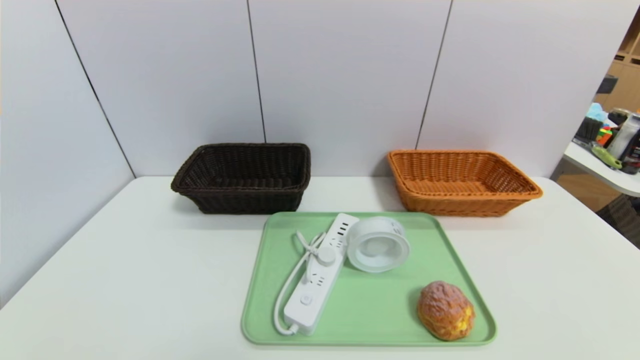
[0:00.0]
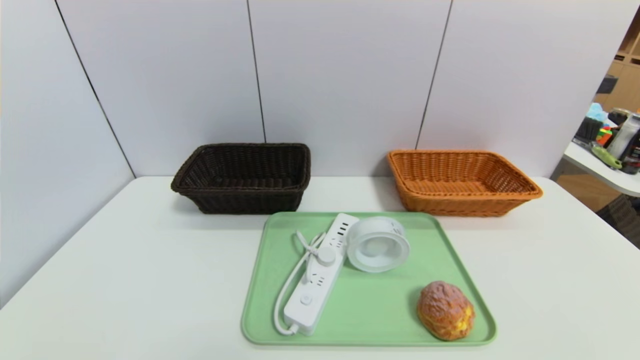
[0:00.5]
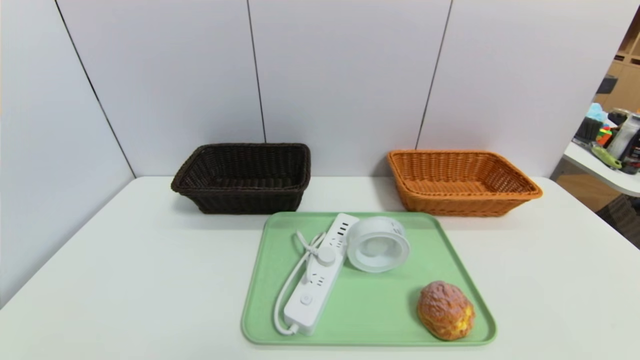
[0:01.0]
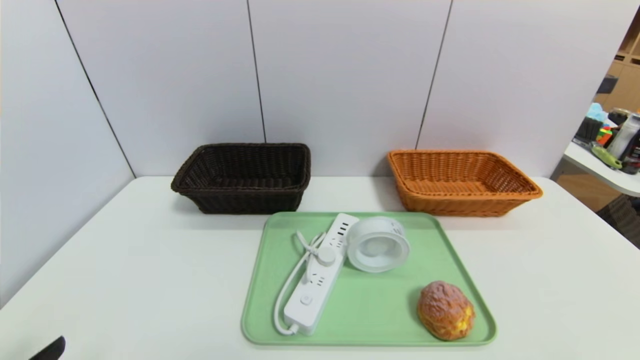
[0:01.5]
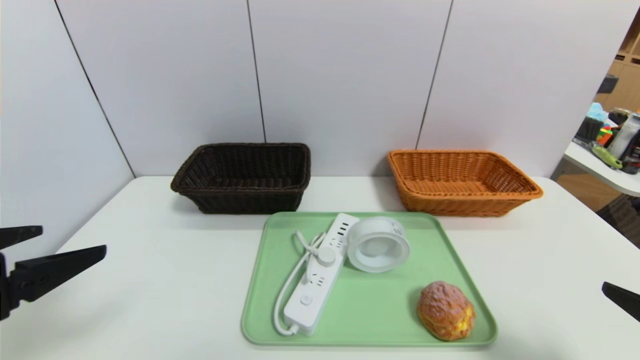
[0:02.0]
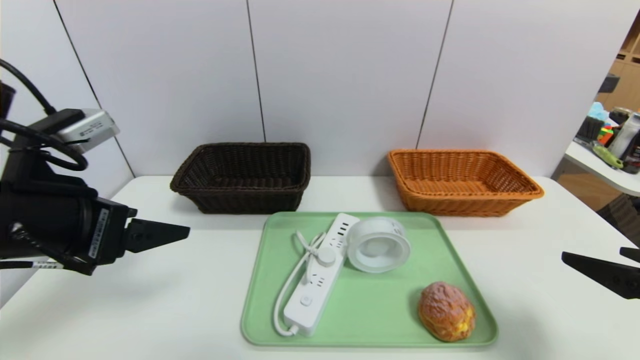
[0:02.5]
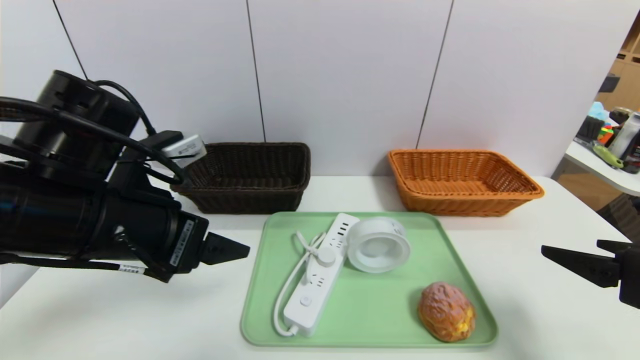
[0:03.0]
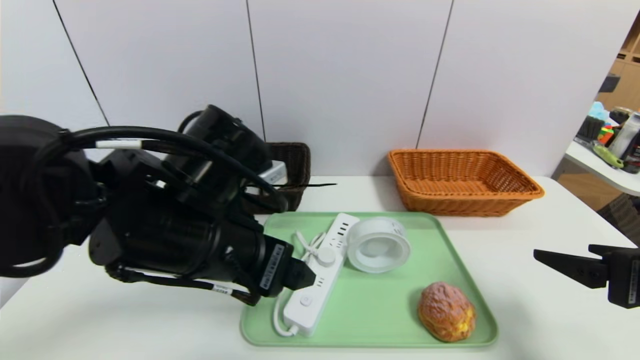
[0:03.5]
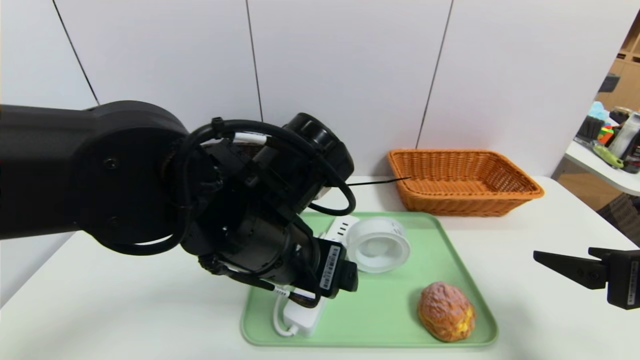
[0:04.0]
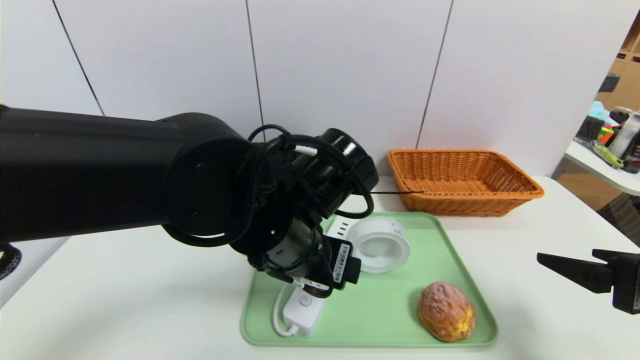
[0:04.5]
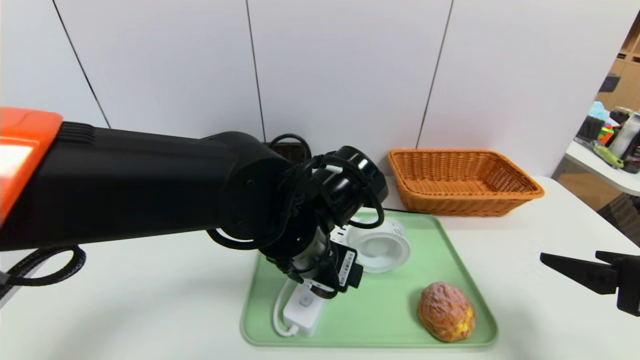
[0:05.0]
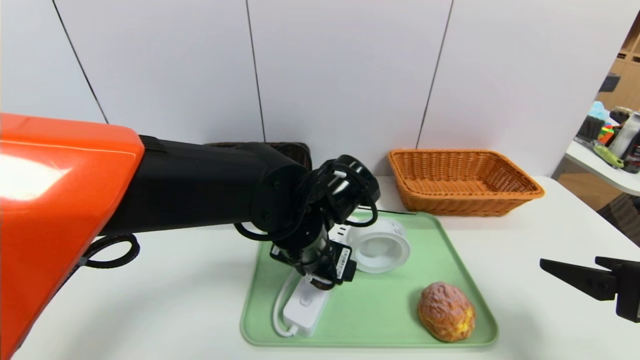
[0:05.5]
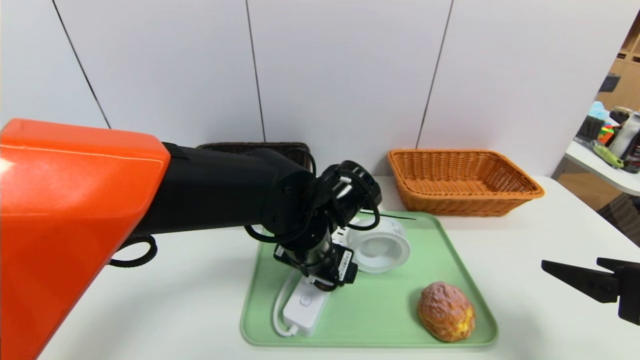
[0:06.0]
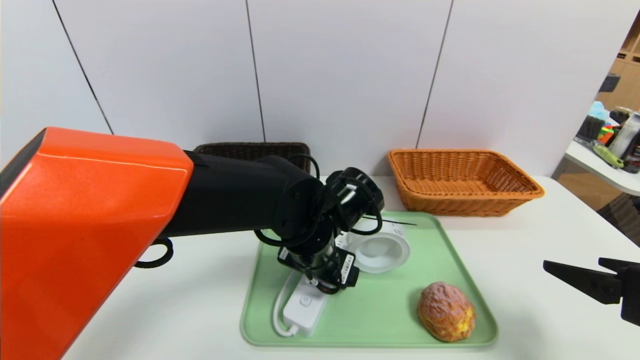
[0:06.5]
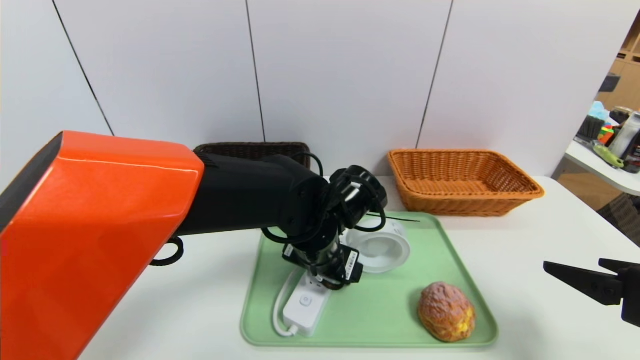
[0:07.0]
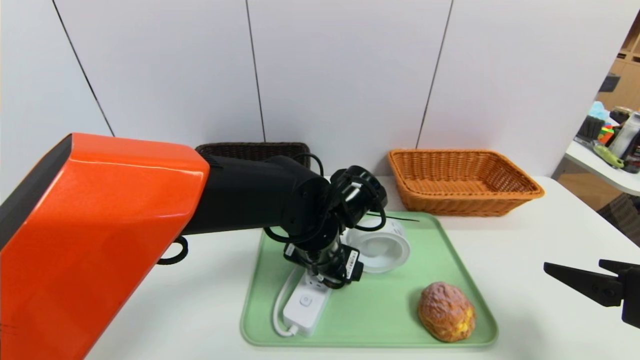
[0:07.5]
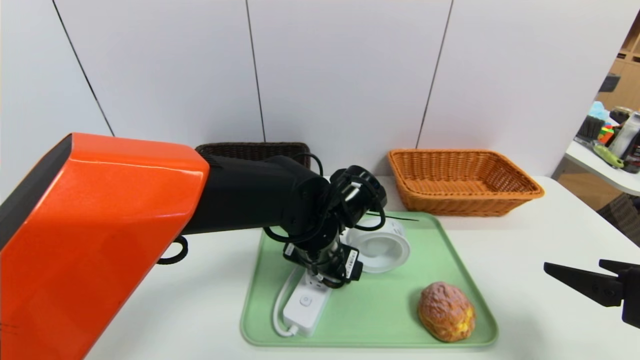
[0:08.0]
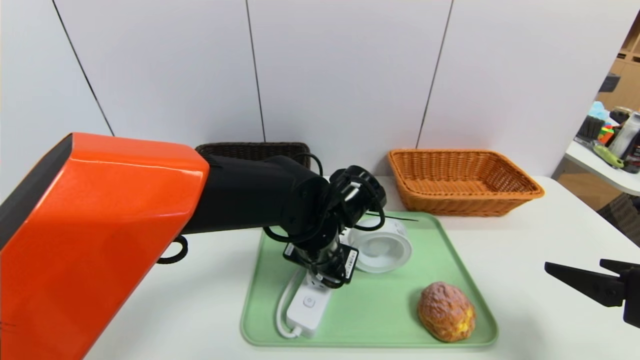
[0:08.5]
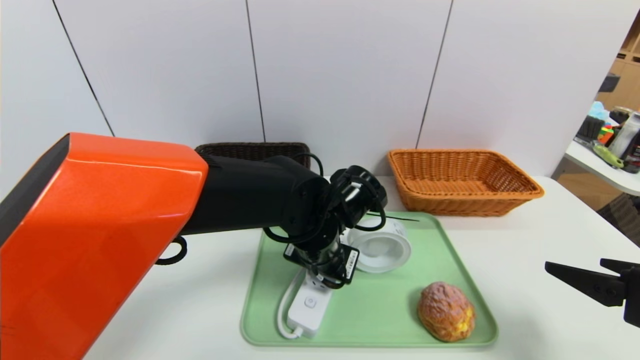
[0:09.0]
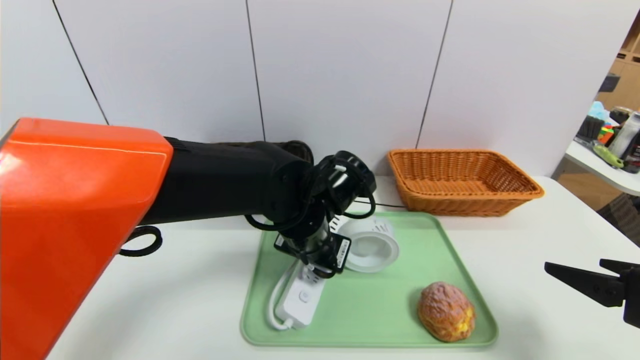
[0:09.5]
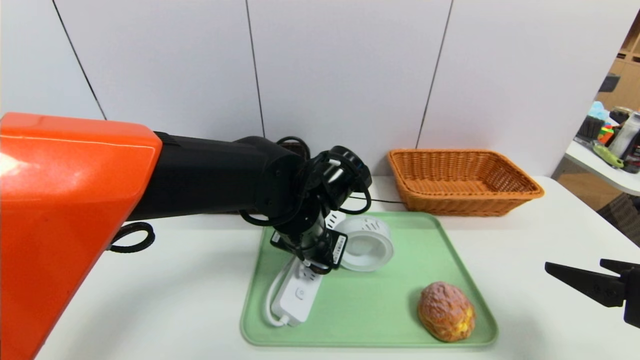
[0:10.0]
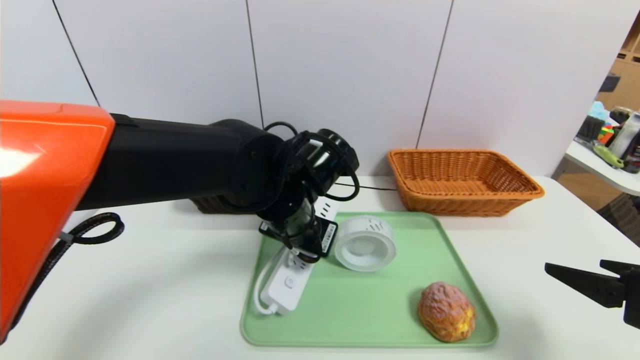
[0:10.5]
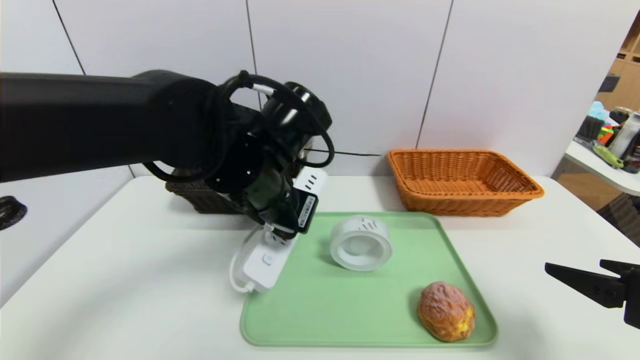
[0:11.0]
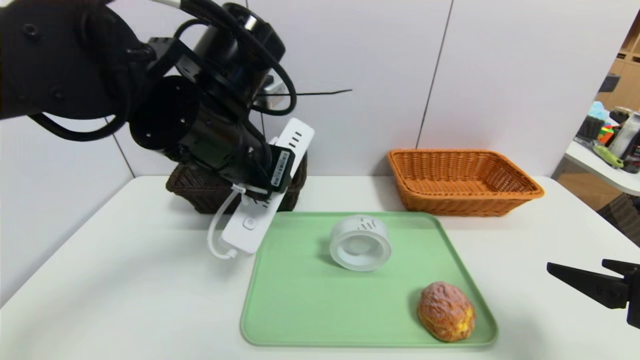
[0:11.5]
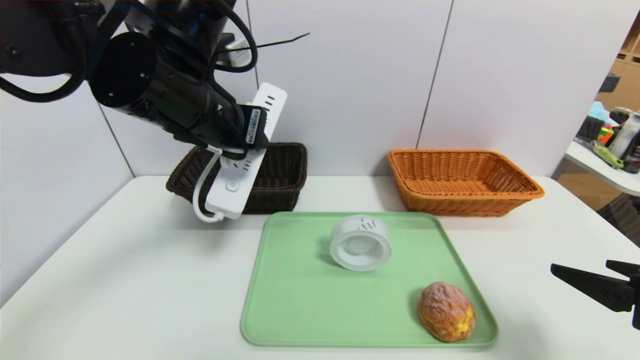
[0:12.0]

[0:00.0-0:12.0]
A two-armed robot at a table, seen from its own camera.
Task of the whole recording: place the food in the right basket with the right gripper, and place the non food items in the left basket with the left gripper.
0:00.0 to 0:02.0: The grippers both shift upward and forward by roughly 20 cm.
0:02.0 to 0:04.0: The right gripper moves forward, roughly 10 cm; the left gripper is displaced to the right and forward by roughly 25 cm.
0:04.0 to 0:06.0: The left gripper goes some 10 cm downward and forward.
0:06.0 to 0:08.0: The grippers move only a little.
0:08.0 to 0:10.0: The left gripper closes up.
0:10.0 to 0:12.0: The left gripper goes roughly 20 cm upward and to the left.

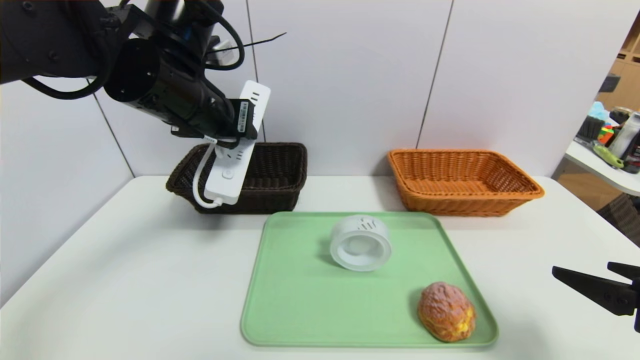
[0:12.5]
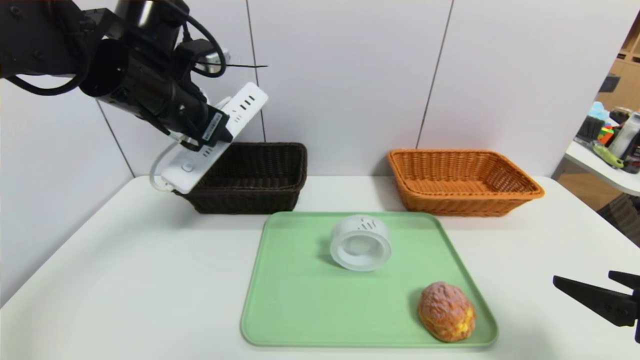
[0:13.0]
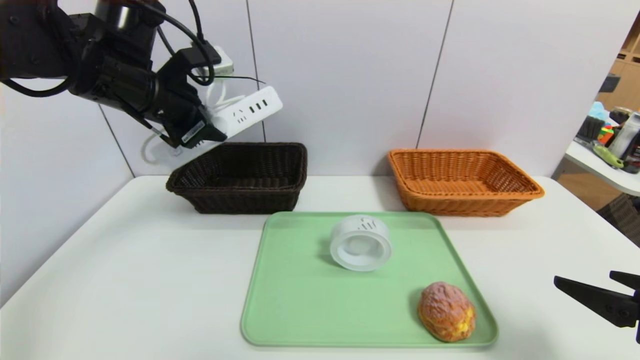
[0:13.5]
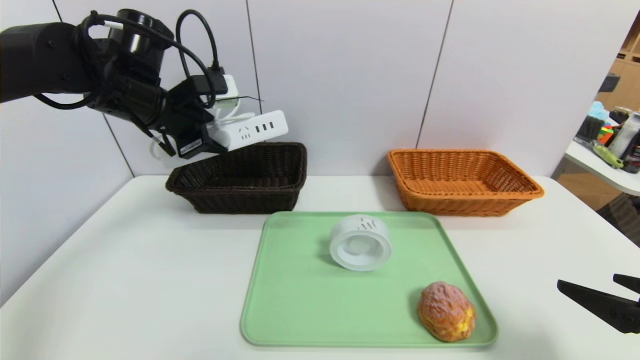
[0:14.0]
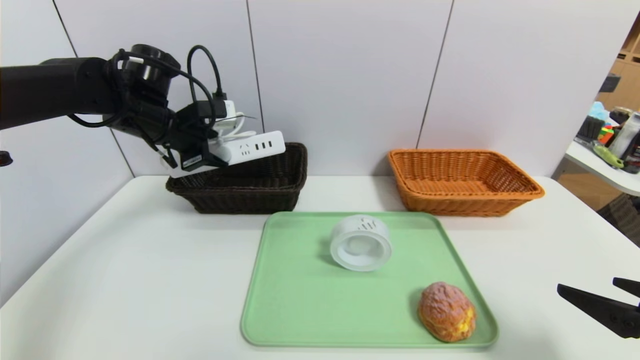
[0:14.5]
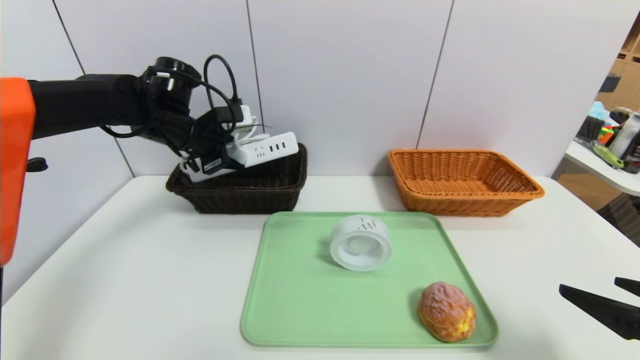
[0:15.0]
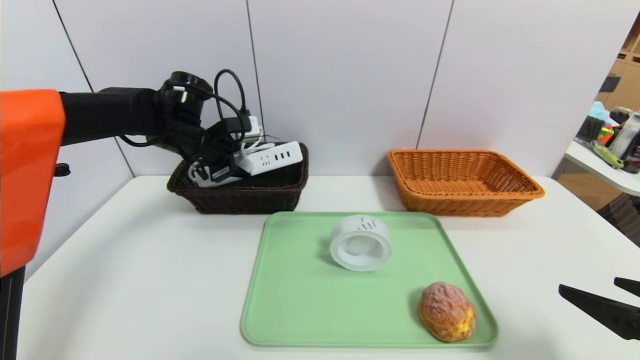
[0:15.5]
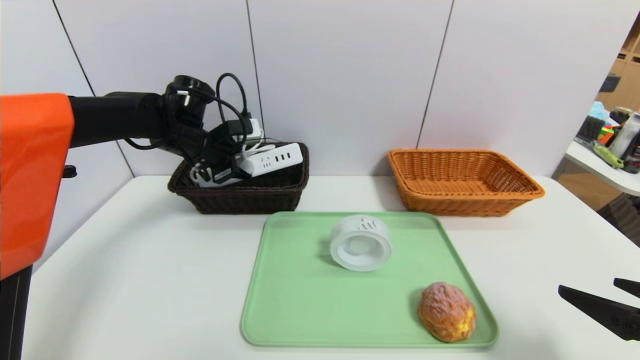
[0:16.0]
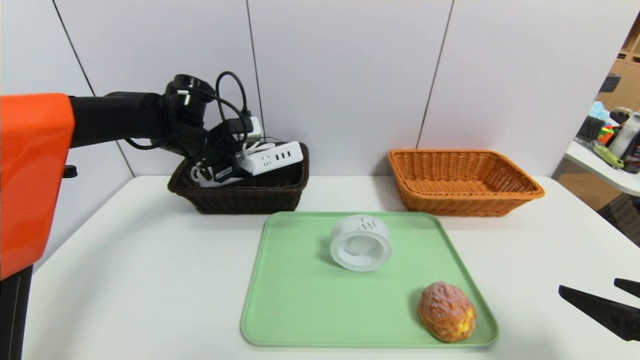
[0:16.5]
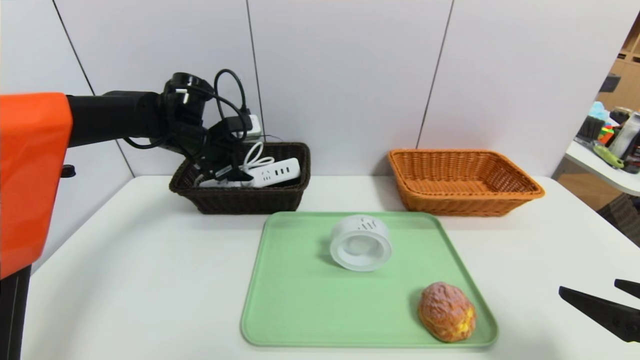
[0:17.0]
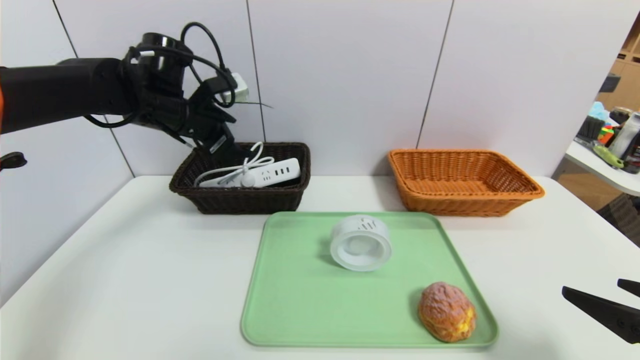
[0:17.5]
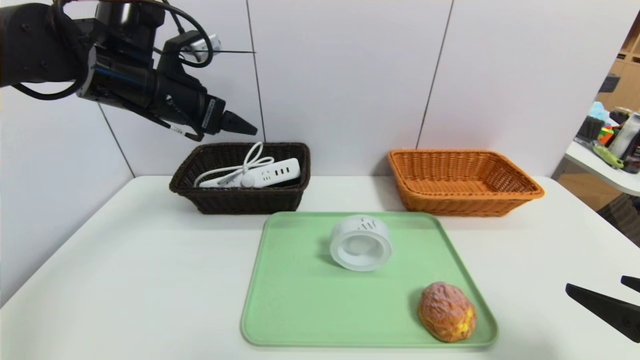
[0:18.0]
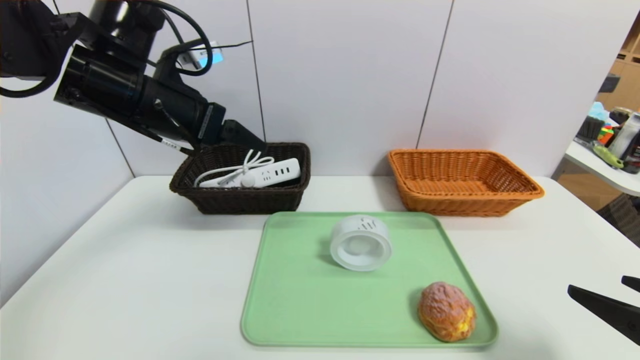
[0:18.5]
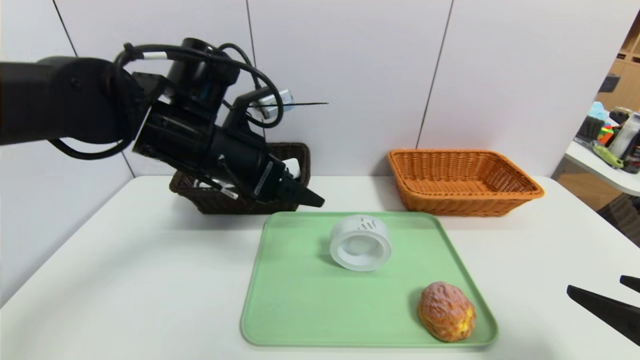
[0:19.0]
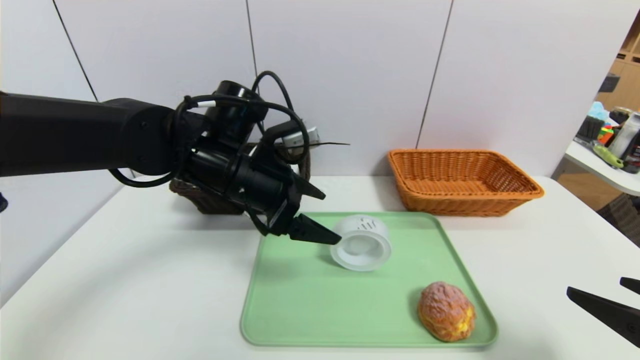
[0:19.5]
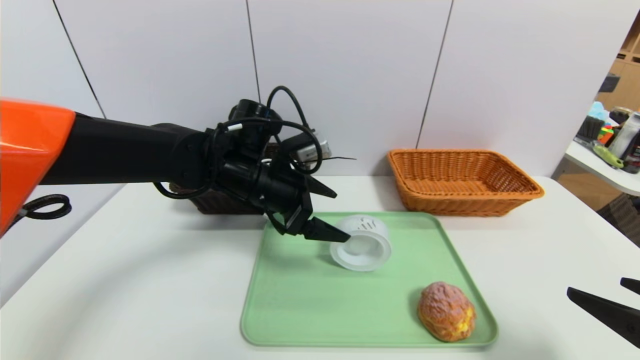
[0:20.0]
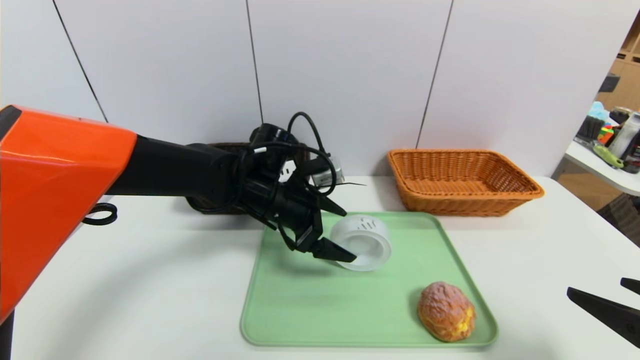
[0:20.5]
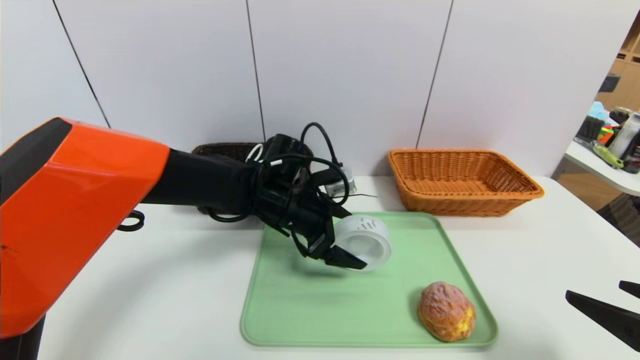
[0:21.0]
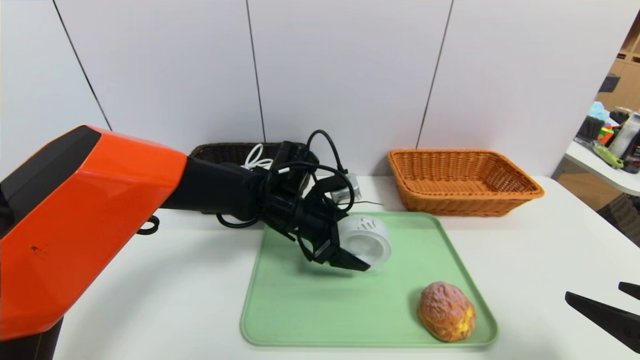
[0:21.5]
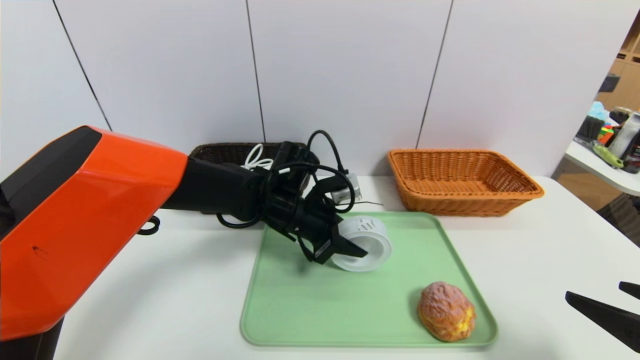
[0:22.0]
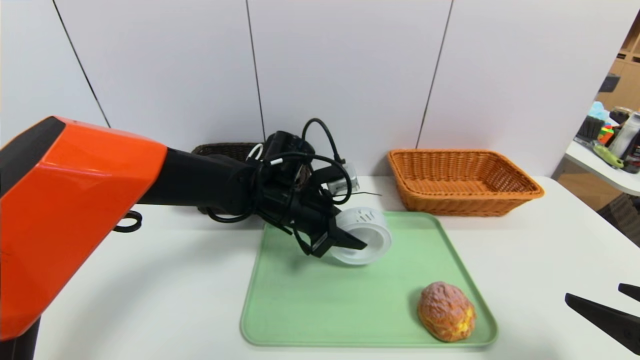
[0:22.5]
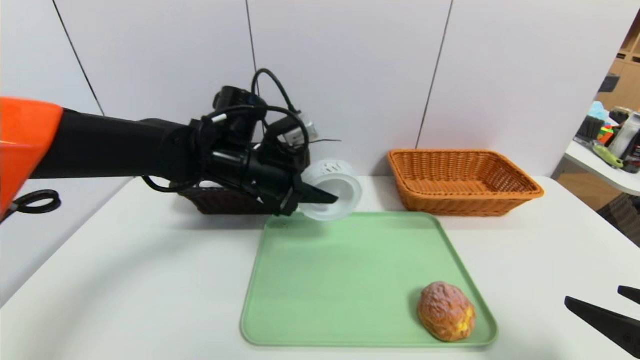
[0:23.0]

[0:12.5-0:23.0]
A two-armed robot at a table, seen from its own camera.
Task of the whole recording: place the food in the right basket with the right gripper, and place the non food items in the left basket with the left gripper.
Step, 0:12.5 to 0:17.0: Grasp the power strip and put it in the left basket.
0:12.5 to 0:14.5: The left gripper travels forward, to the left and downward by approximately 15 cm.
0:14.5 to 0:16.5: The left gripper changes place by approximately 5 cm.
0:16.5 to 0:19.0: The left gripper goes roughly 15 cm backward and to the right, and opens up.
0:19.0 to 0:21.0: The left gripper is displaced downward, to the right and forward by about 15 cm.
0:21.0 to 0:23.0: The left gripper is displaced upward and to the left by about 10 cm, and closes up.
